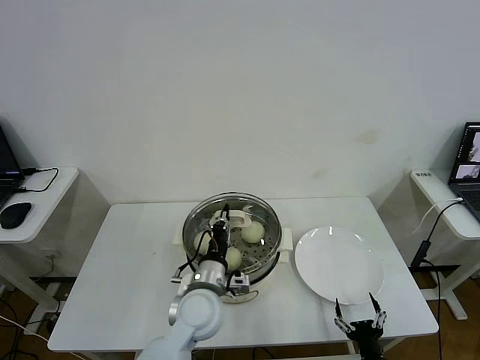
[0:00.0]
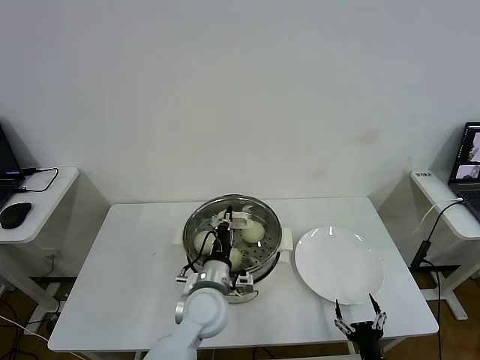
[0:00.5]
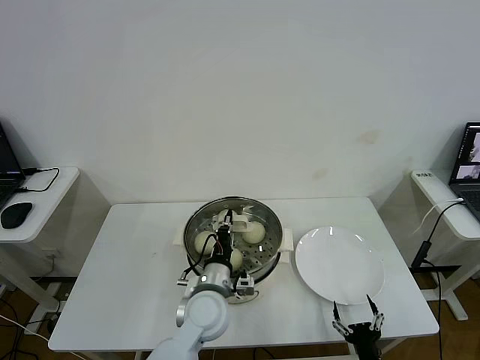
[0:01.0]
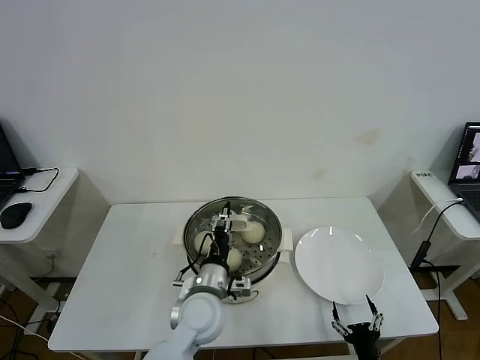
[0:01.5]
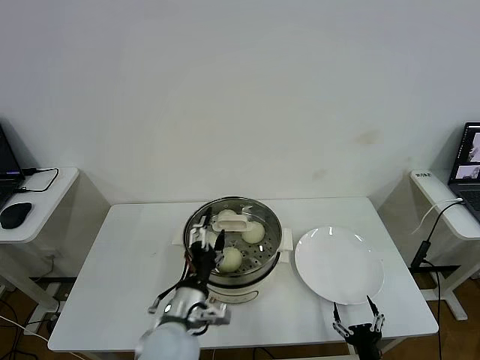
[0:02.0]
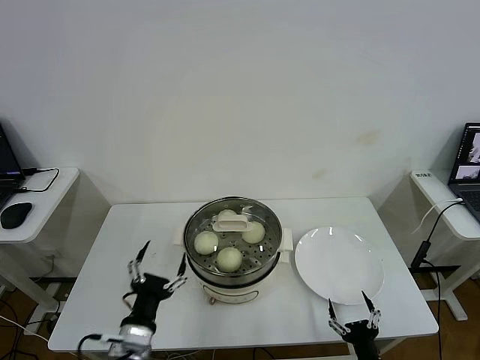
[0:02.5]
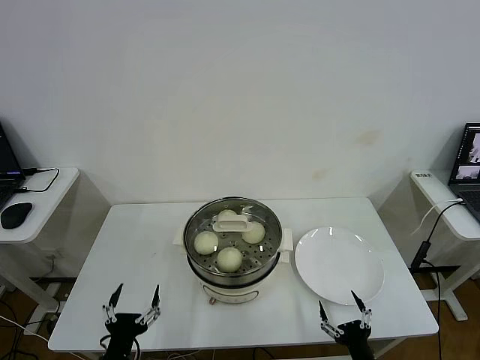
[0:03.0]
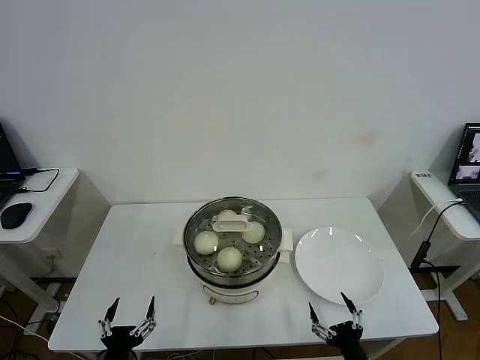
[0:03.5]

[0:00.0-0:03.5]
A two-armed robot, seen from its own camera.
0:00.0 to 0:02.0: The left gripper is displaced backward by about 5 cm, and opens.
0:02.0 to 0:03.5: The left gripper is displaced to the left, backward and downward by some 25 cm.

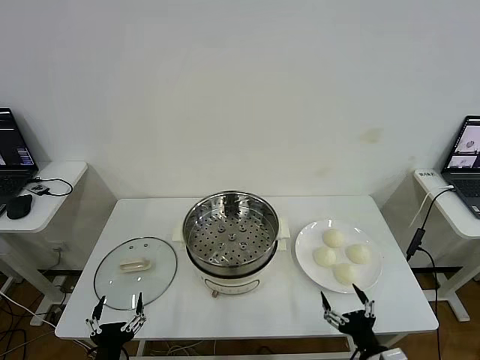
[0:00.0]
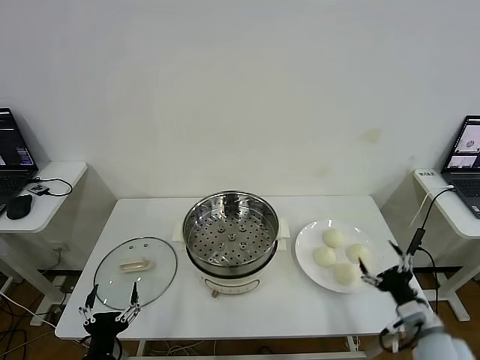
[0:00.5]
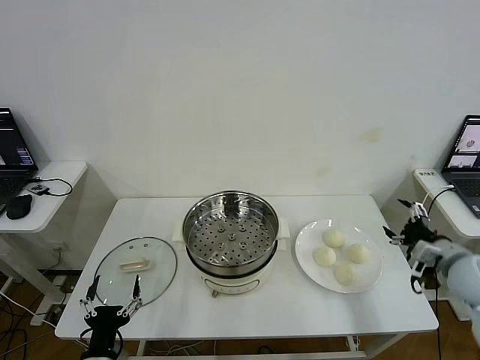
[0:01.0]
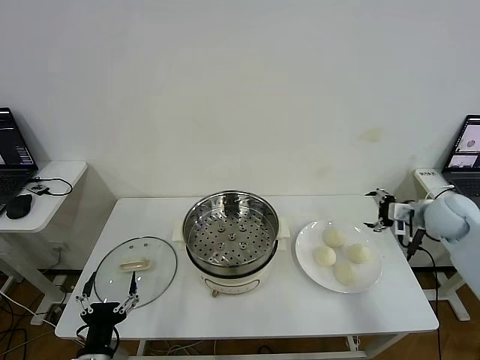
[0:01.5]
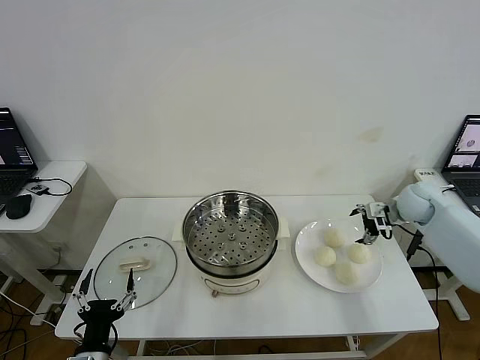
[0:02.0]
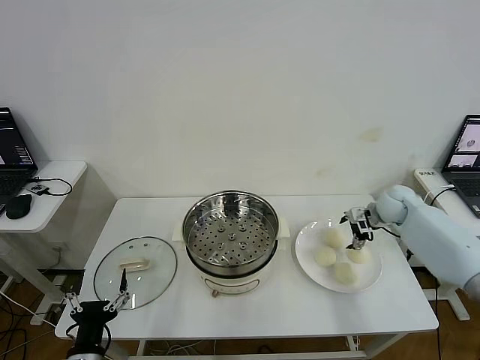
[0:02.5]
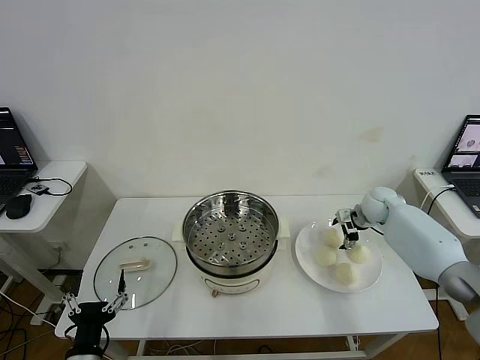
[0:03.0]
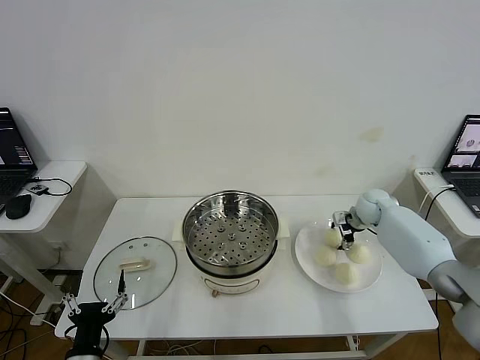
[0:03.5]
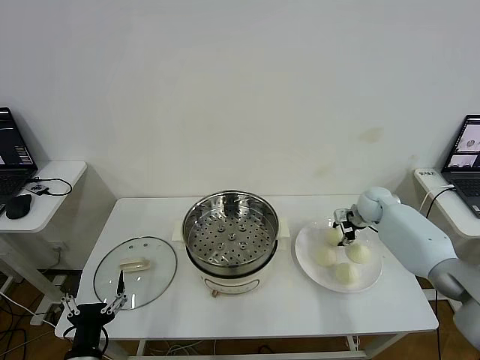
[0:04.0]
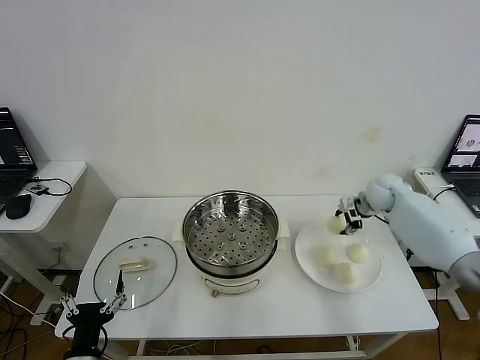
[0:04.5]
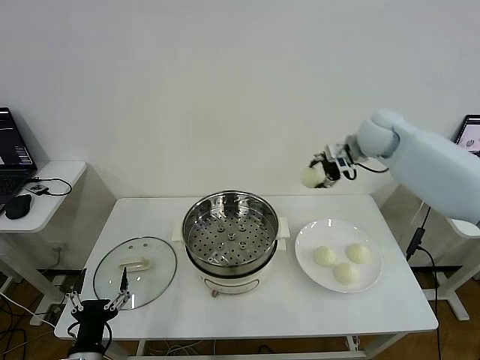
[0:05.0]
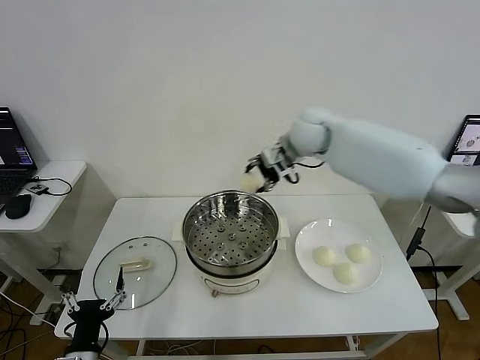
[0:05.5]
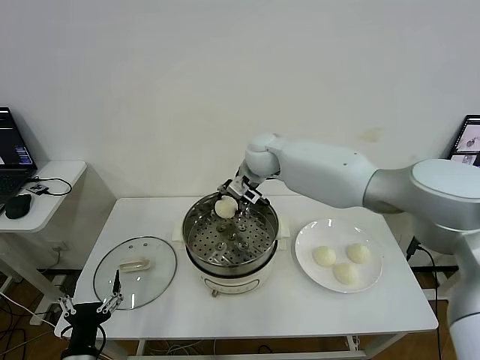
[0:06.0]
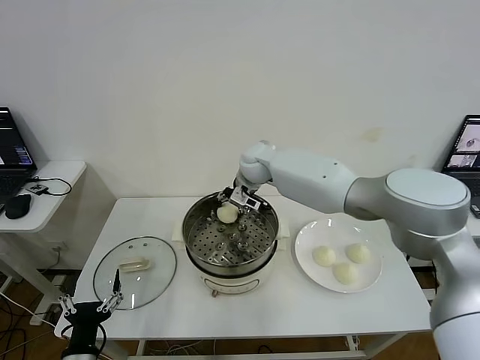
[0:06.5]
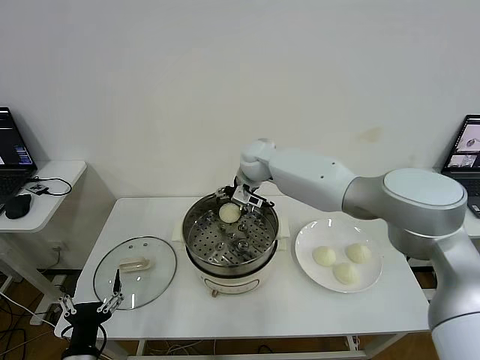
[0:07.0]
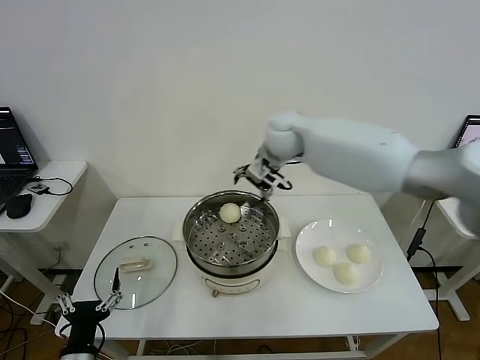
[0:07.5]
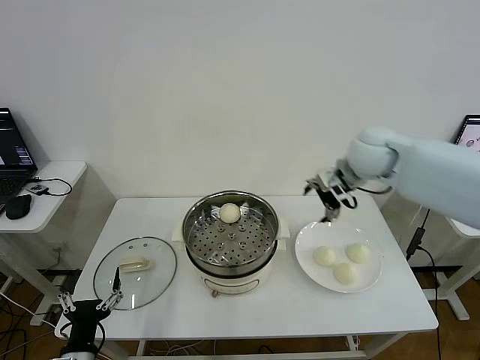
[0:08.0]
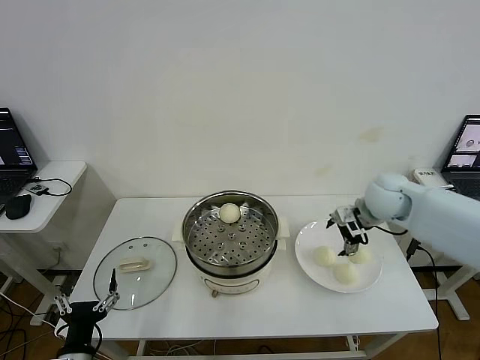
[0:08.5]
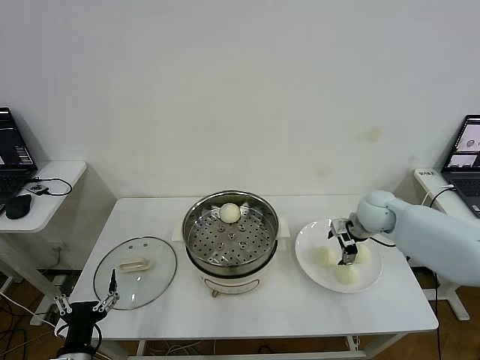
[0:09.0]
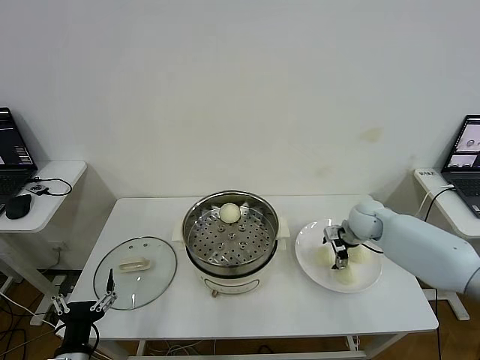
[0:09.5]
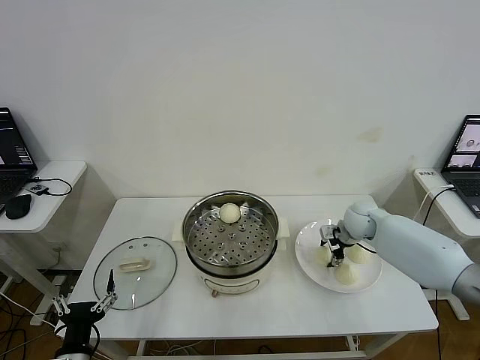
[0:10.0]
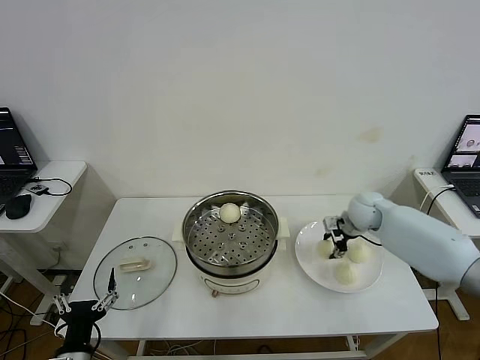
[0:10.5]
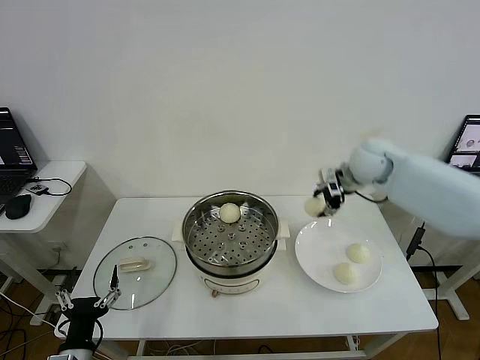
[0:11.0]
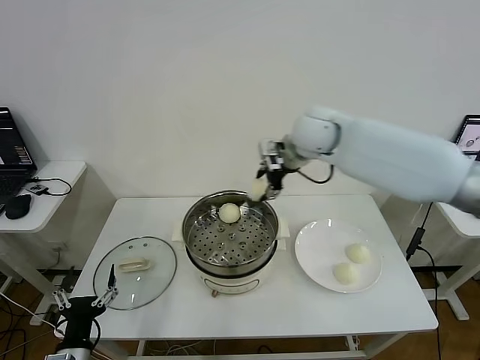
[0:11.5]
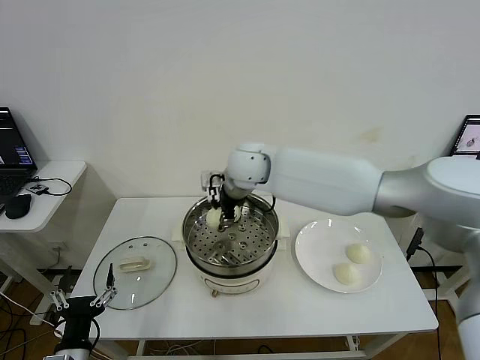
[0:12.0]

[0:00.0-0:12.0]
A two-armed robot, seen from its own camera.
Step, 0:00.0 to 0:04.0: Grasp the baozi in the plate with right gripper.
Step, 0:04.5 to 0:06.5: Place the baozi on the steamer with right gripper.
Step, 0:07.0 to 0:10.0: Grasp the baozi in the plate with right gripper.
0:02.0 to 0:04.0: The right gripper is displaced downward and forward by about 10 cm, and closes up.
0:04.0 to 0:06.0: The right gripper travels to the left and upward by about 35 cm.
0:06.0 to 0:08.0: The right gripper heads to the right, covering about 25 cm, and opens.
0:08.0 to 0:10.0: The right gripper is displaced downward by some 20 cm, and closes up.
0:10.0 to 0:12.0: The right gripper is displaced to the left and upward by approximately 35 cm.

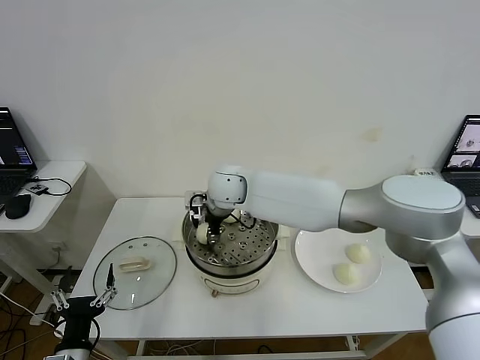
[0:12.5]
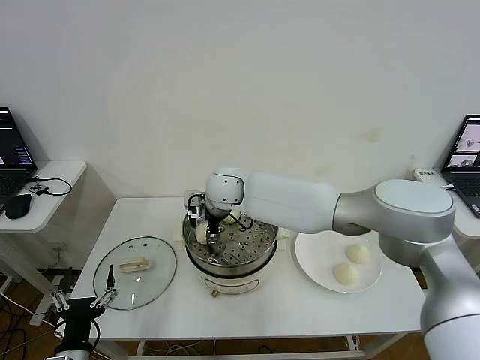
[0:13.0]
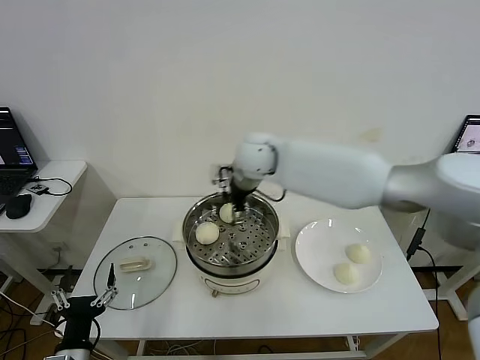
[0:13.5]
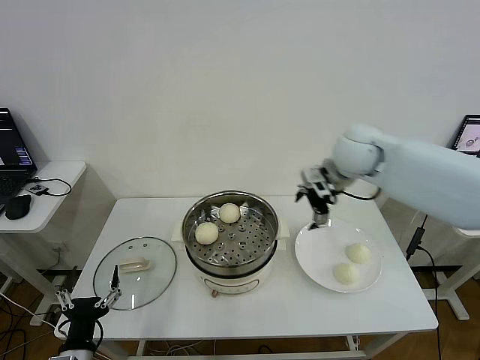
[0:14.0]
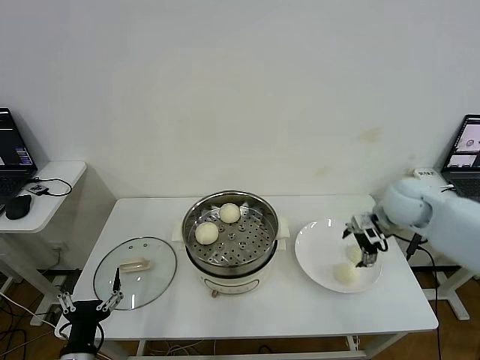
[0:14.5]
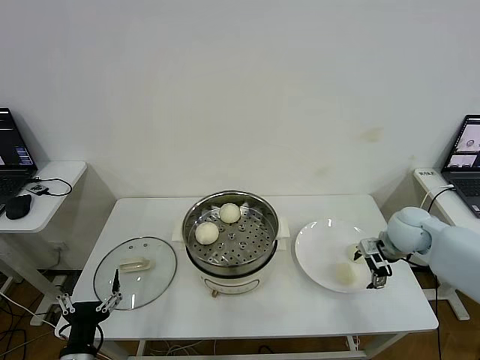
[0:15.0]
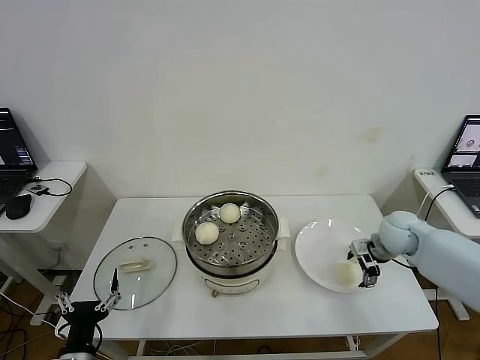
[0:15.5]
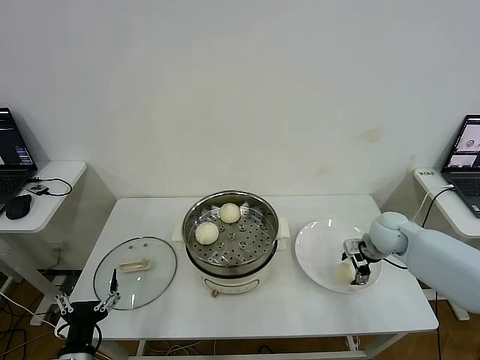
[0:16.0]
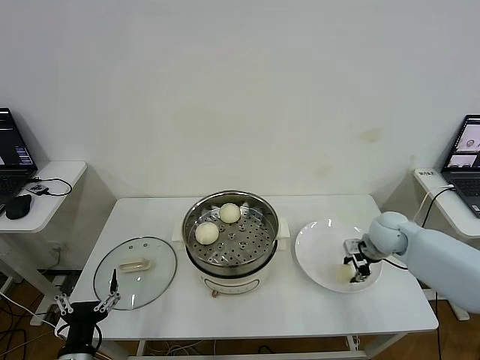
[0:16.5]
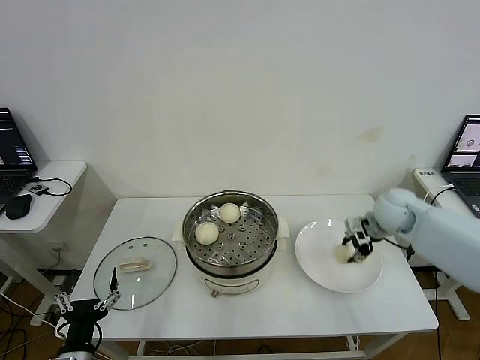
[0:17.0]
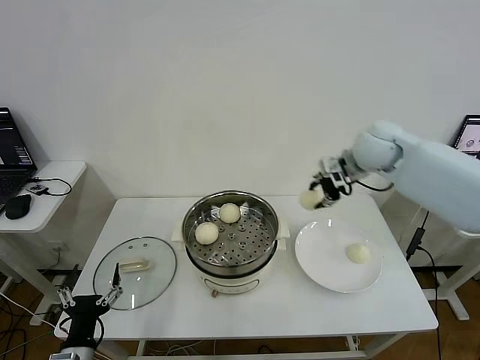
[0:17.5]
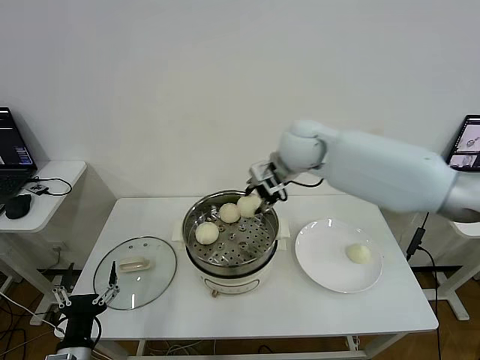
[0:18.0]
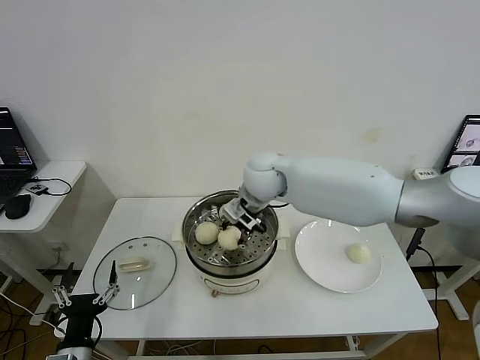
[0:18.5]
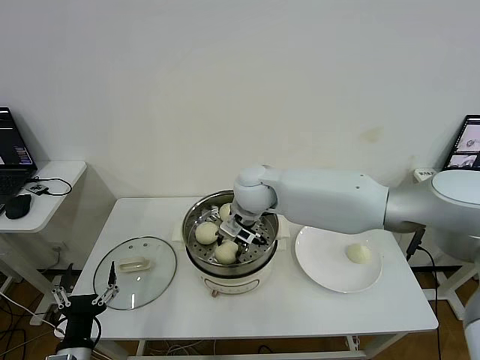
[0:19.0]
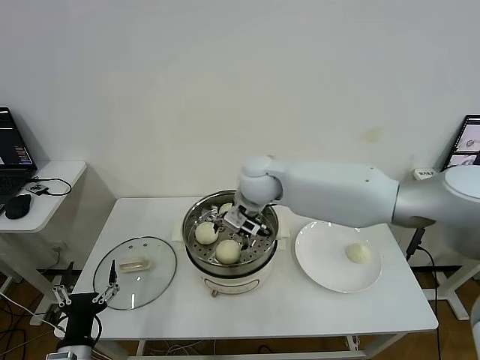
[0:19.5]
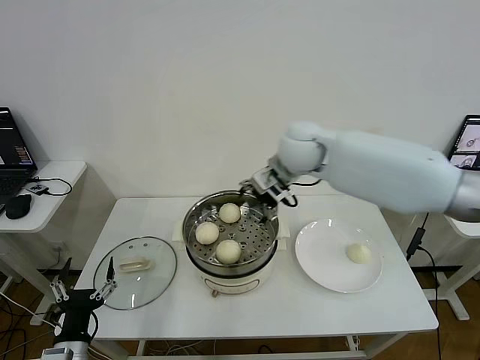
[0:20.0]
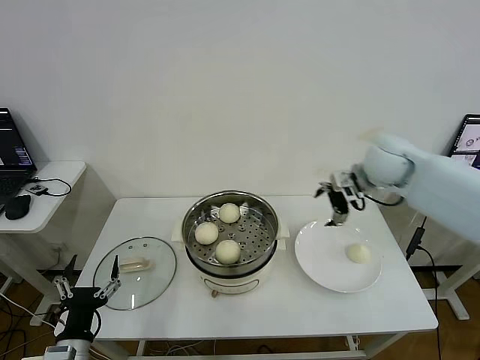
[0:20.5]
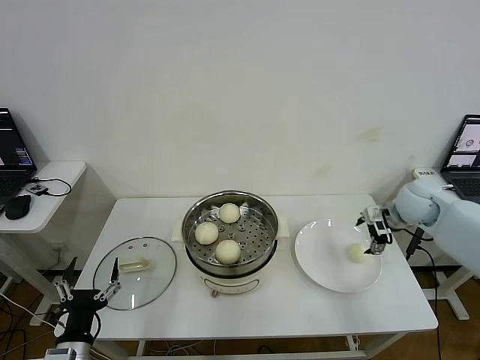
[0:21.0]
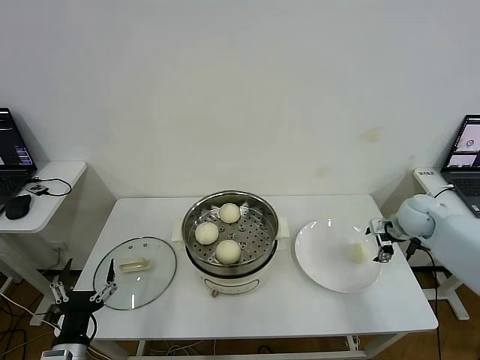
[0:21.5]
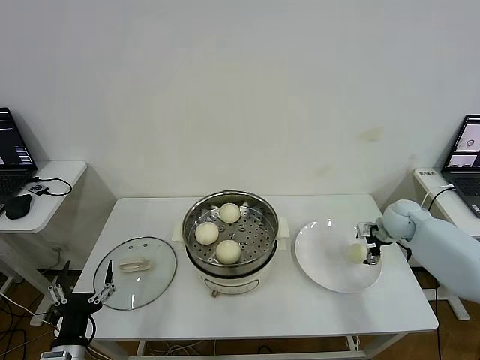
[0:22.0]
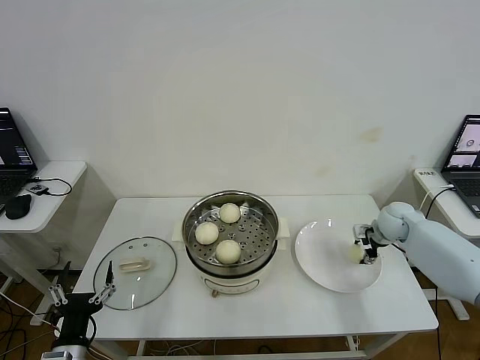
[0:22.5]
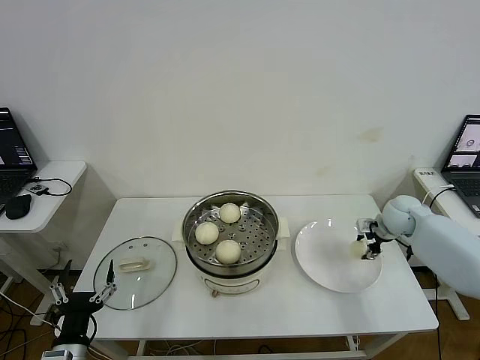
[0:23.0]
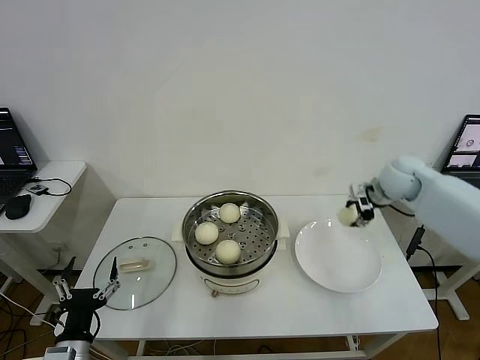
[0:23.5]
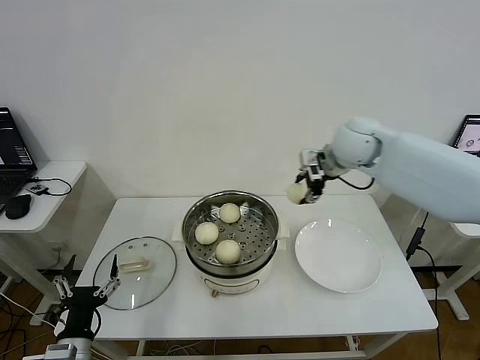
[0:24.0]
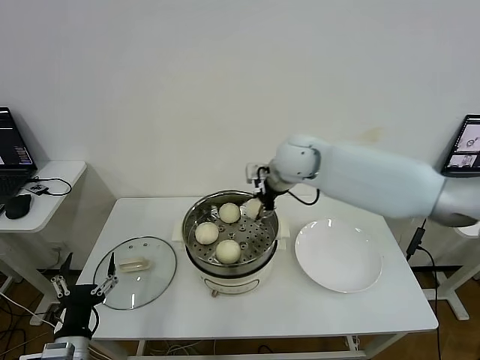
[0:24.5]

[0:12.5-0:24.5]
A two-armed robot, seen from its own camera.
Step, 0:13.5 to 0:16.5: Grasp the baozi in the plate with right gripper.
Step, 0:17.0 to 0:19.0: Place the baozi on the steamer with right gripper.
Step, 0:19.5 to 0:22.5: Grasp the baozi in the plate with right gripper.
0:12.5 to 0:14.5: The right gripper shifts approximately 40 cm to the right, and opens its fingers.
0:14.5 to 0:16.5: The right gripper goes some 10 cm downward, and closes its fingers.
0:16.5 to 0:18.5: The right gripper is displaced to the left and upward by about 35 cm.
0:18.5 to 0:20.5: The right gripper is displaced to the right by about 25 cm, and opens up.
0:20.5 to 0:22.5: The right gripper travels downward and to the right by about 20 cm, and closes.
0:22.5 to 0:24.5: The right gripper goes some 35 cm to the left and upward.
